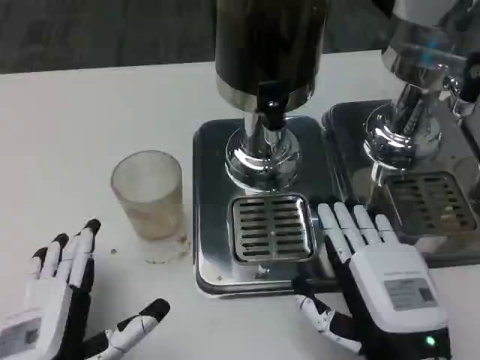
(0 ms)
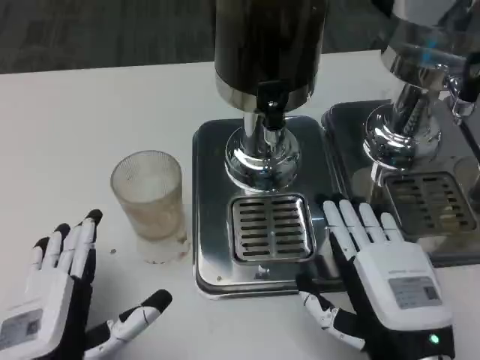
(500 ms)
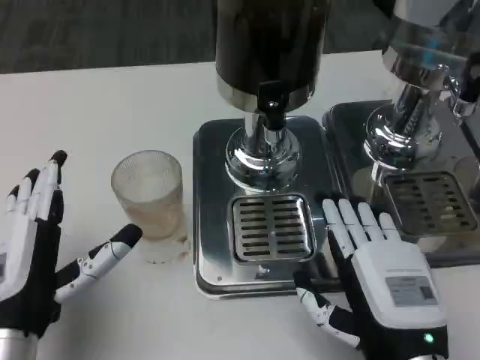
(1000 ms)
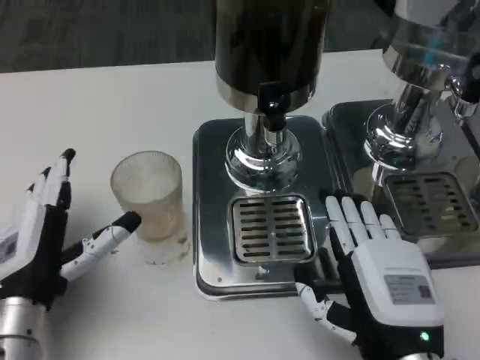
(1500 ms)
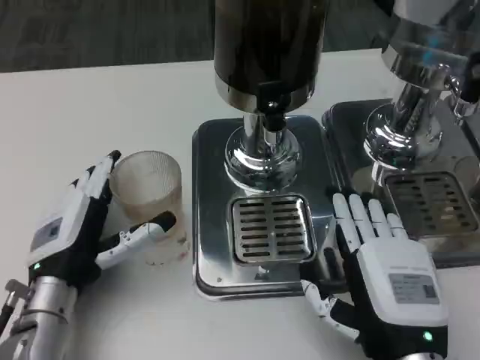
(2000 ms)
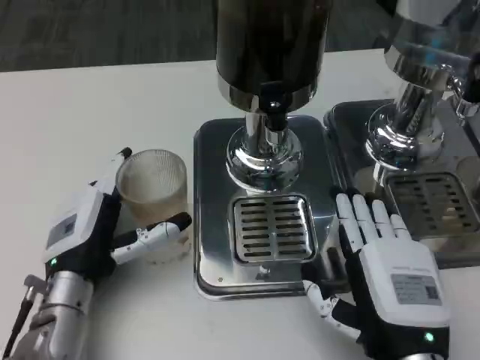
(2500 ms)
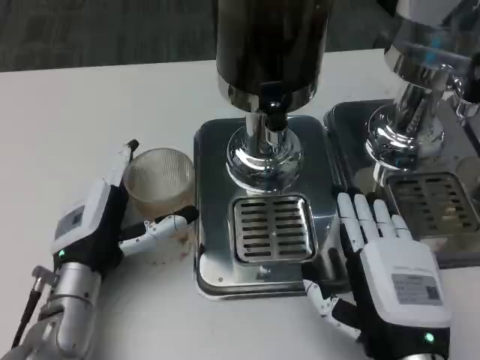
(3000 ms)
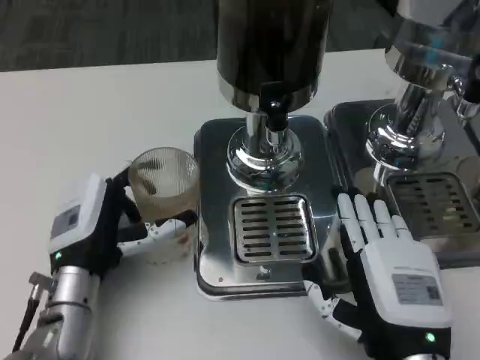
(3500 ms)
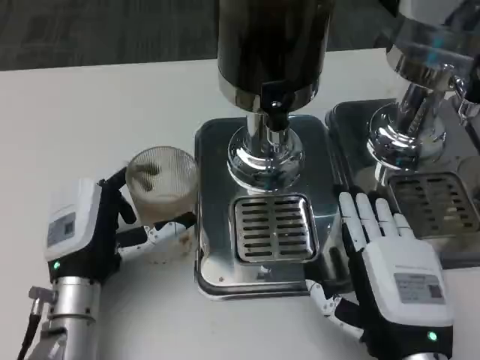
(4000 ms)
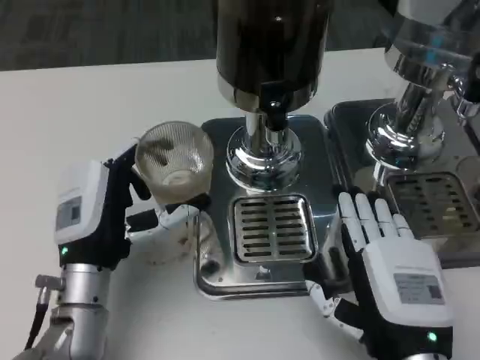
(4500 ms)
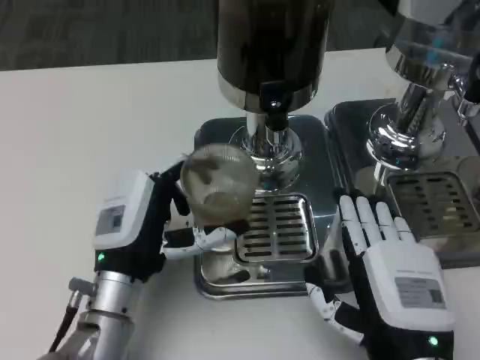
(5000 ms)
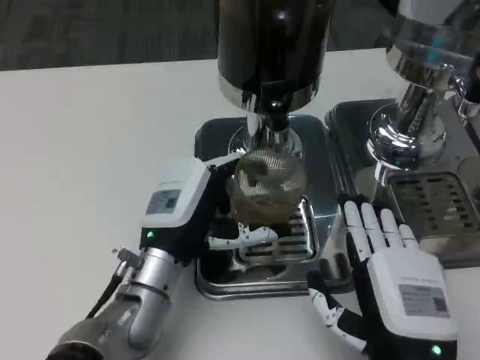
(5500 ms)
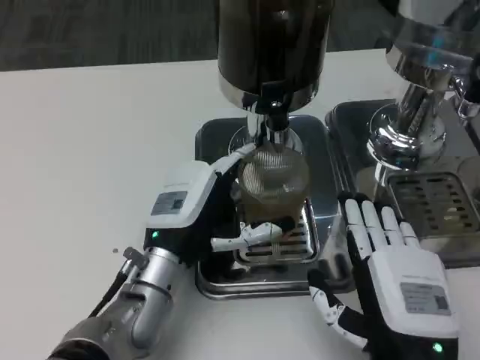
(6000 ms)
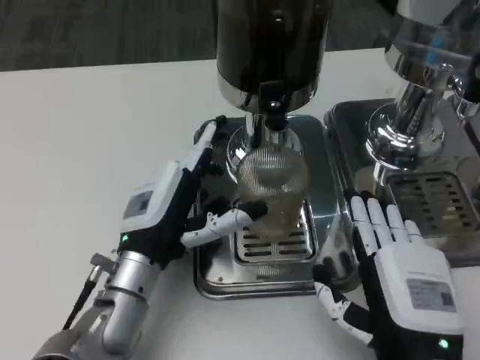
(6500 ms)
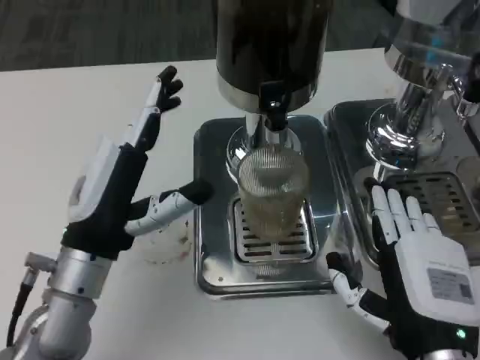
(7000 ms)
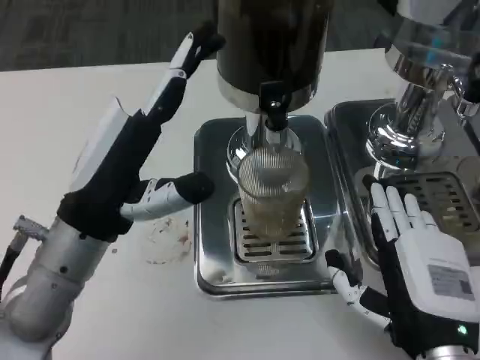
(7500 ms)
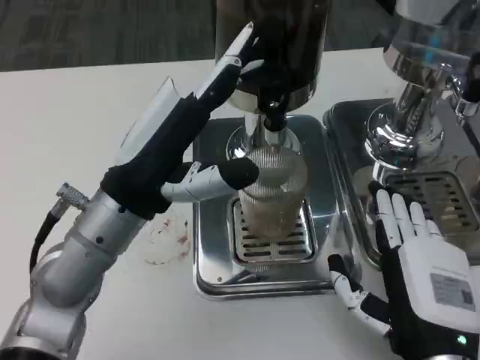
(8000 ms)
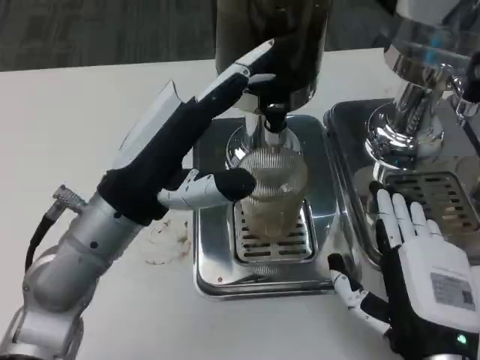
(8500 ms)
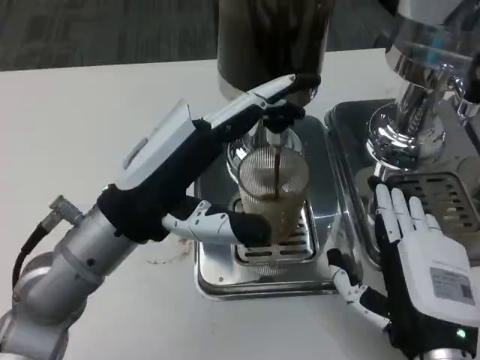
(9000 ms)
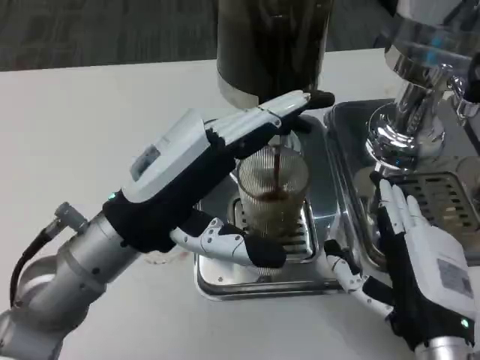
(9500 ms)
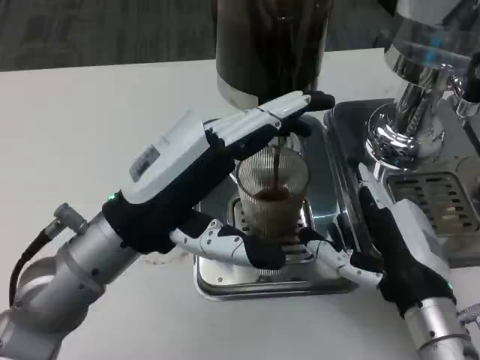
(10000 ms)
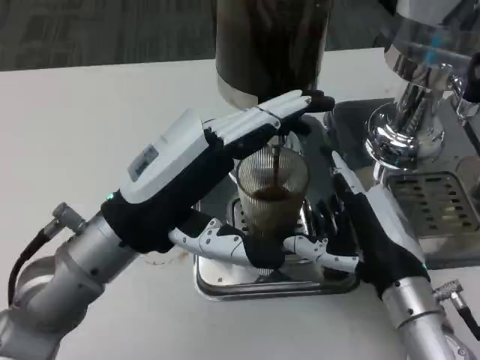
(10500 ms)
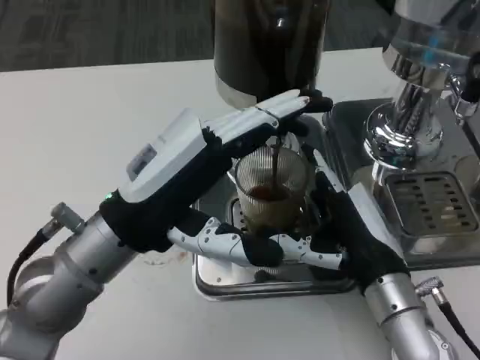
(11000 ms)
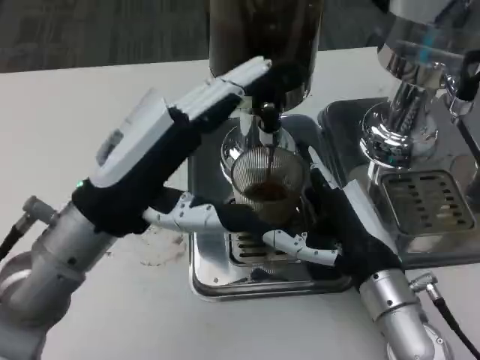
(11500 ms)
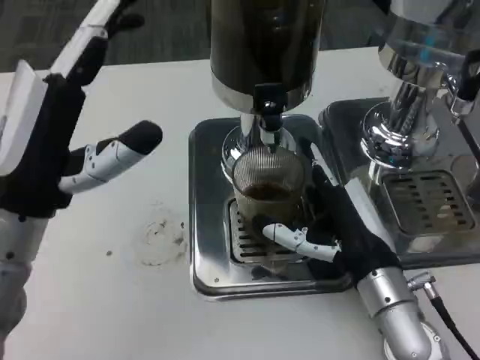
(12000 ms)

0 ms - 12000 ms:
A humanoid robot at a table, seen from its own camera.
Task of the whole recording: Grasp the cup under the faucet to collect the drink, then remove the cup.
0 ms - 2000 ms: The left hand moves forward, some 10 cm.
4000 ms - 6000 ms: The left hand heads to the right, covering some 5 cm.
6000 ms - 8000 ms: The left hand heads upward, covering roughly 10 cm.
8000 ms - 10000 ms: The right hand goes approximately 5 cm forward.
10000 ms - 12000 ms: The right hand shifts by roughly 5 cm; the left hand goes roughly 5 cm to the left.

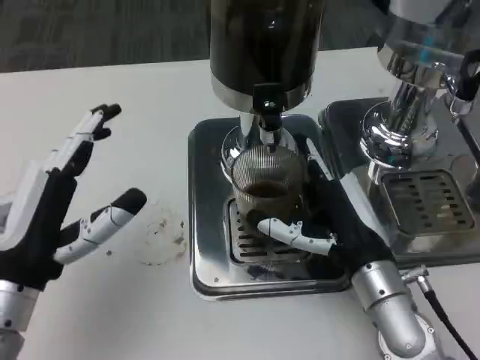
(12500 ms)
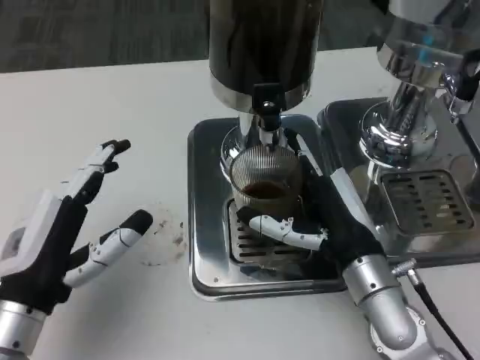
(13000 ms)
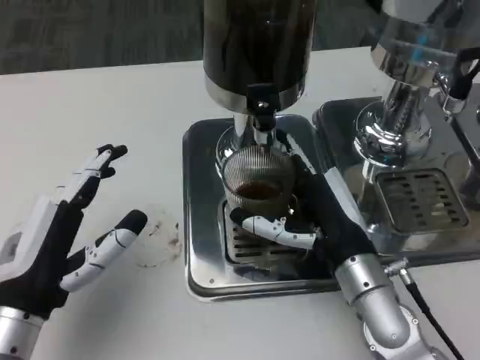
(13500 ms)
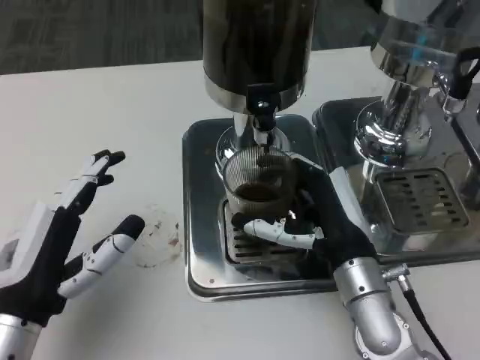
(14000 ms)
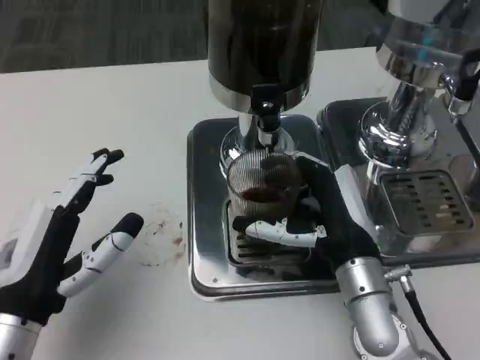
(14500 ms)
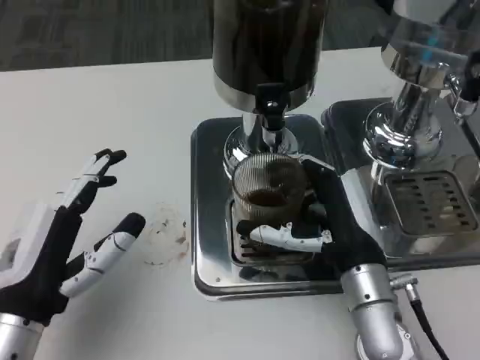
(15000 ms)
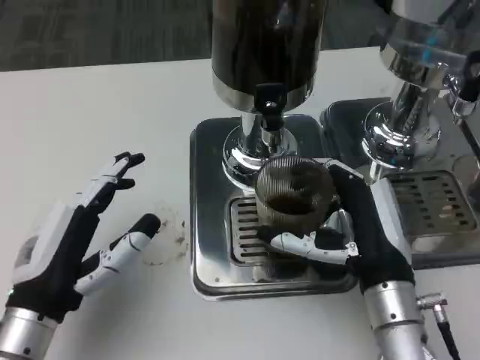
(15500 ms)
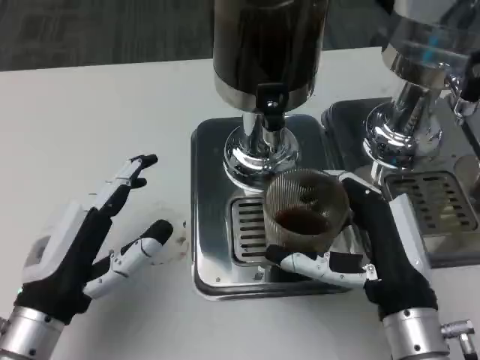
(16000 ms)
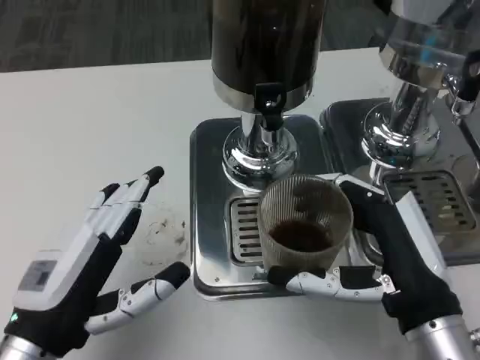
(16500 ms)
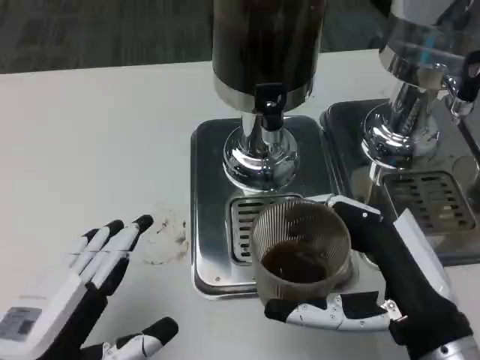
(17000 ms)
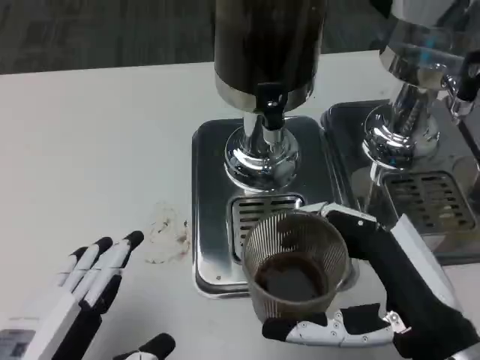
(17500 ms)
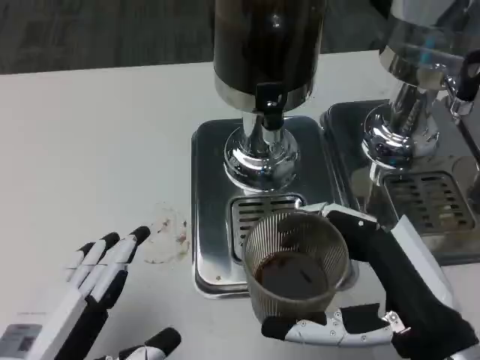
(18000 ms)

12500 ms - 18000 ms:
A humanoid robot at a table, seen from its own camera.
Task of the whole recording: Grasp the cup under the faucet to collect the drink, then remove the cup.
14500 ms - 16000 ms: The right hand moves backward, roughly 5 cm.
16000 ms - 18000 ms: The left hand moves backward, some 10 cm. Meanwhile the right hand shifts approximately 5 cm backward.

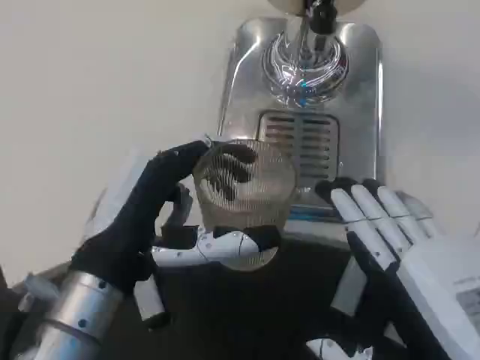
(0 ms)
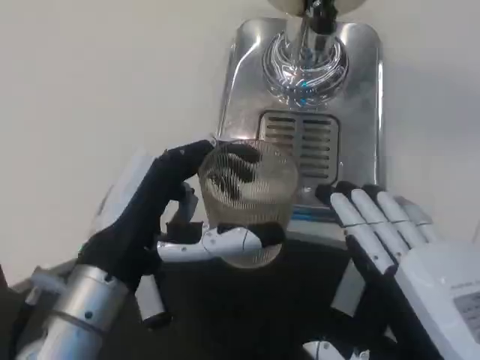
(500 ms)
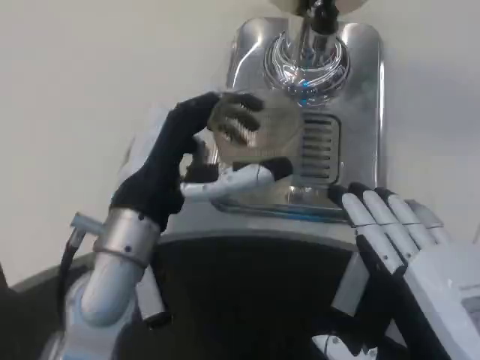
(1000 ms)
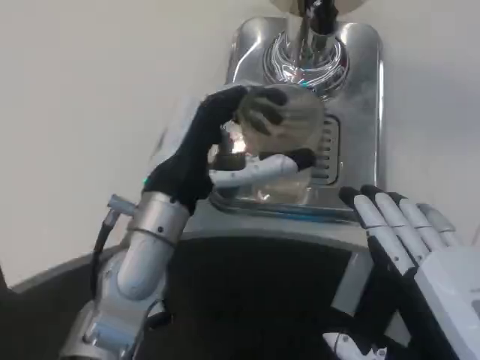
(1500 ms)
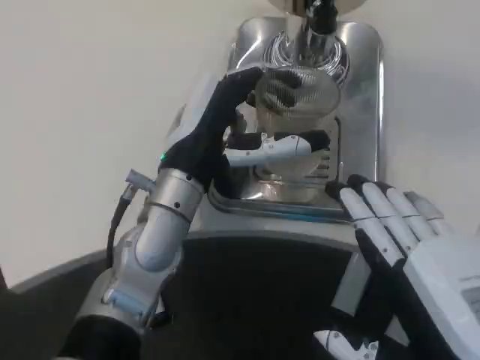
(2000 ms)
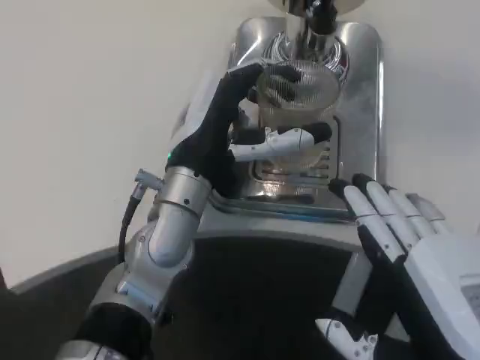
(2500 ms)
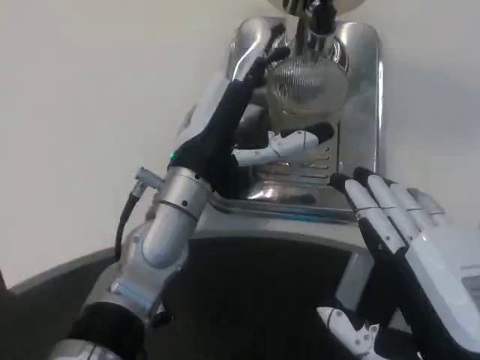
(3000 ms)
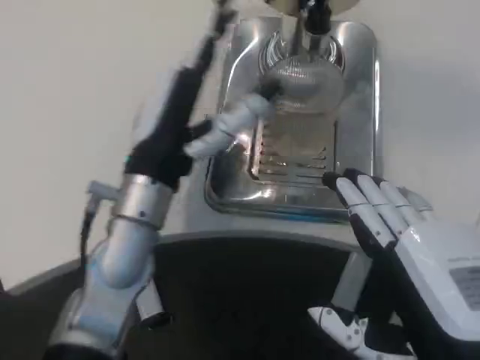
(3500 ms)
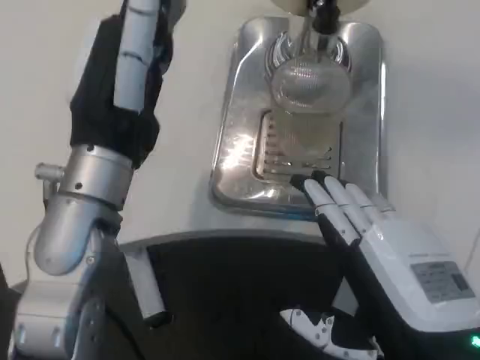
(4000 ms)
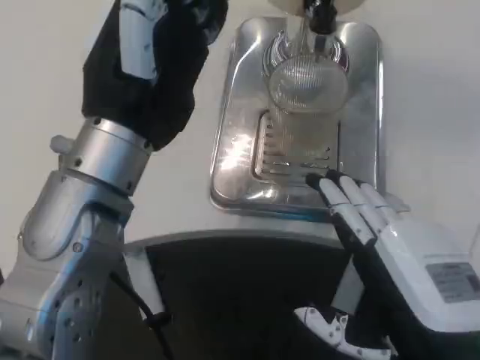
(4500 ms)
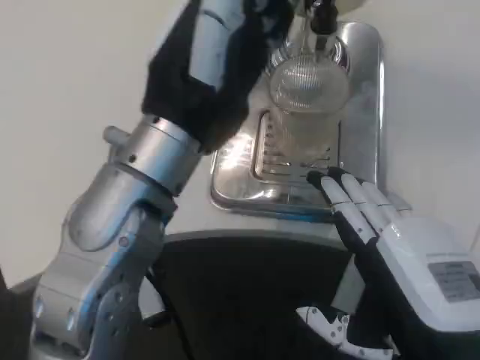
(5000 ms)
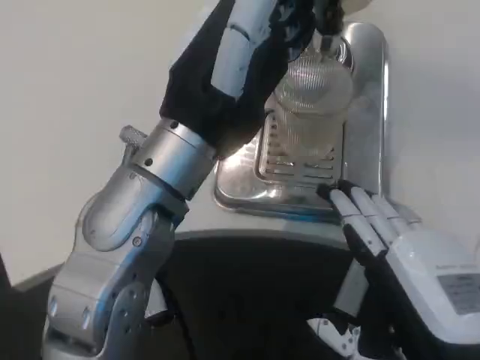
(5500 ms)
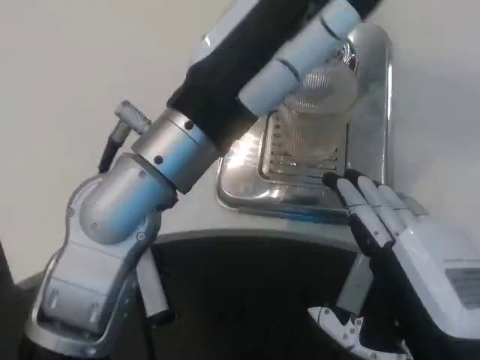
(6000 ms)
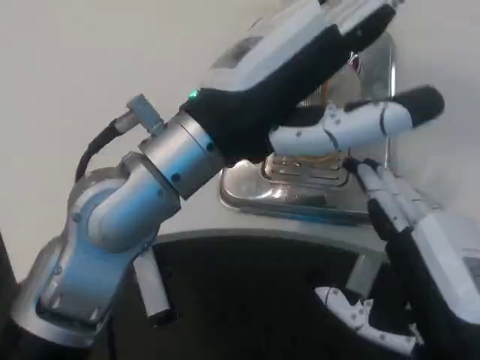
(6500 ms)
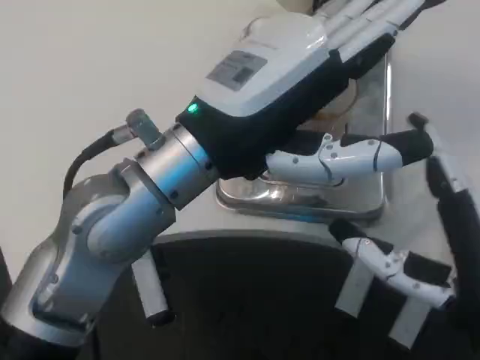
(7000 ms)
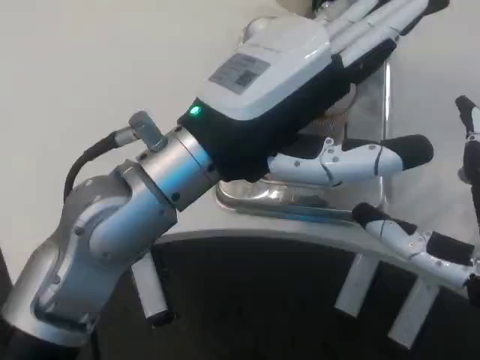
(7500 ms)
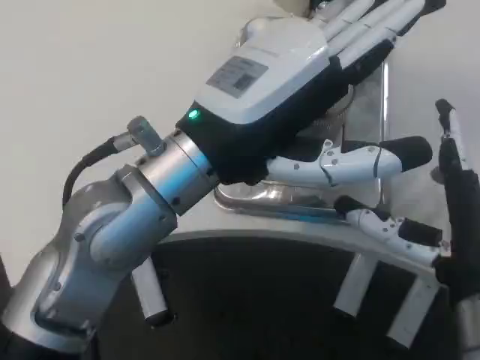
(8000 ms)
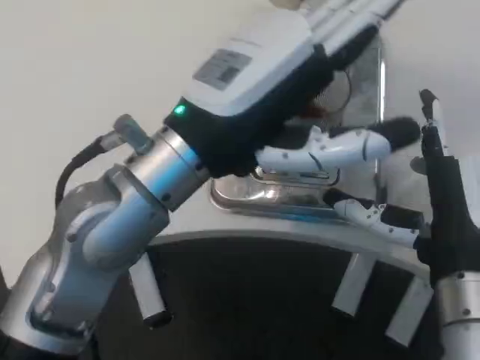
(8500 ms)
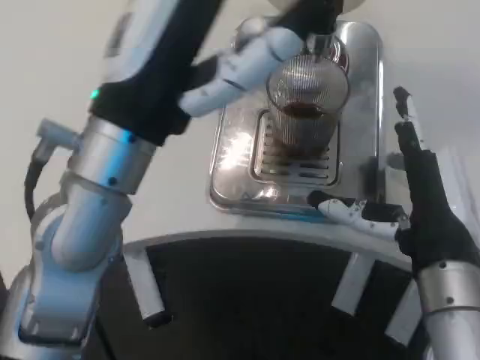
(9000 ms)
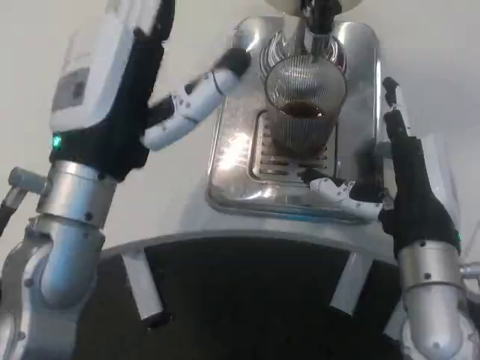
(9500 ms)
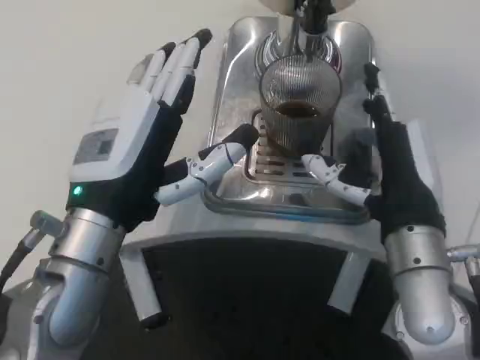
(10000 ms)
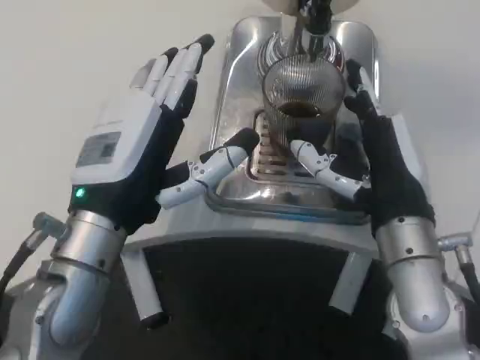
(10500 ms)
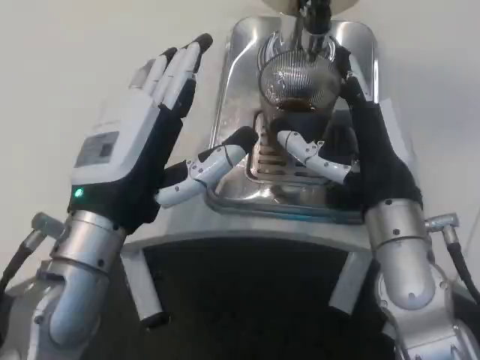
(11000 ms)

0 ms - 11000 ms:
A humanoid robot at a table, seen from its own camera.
Task of the whole recording: Grasp the cup under the faucet to collect the drink, then remove the cup.
0 ms - 2000 ms: The left hand travels forward and to the right by some 15 cm.
3500 ms - 5500 ms: The left hand goes roughly 10 cm upward.
7500 ms - 9000 ms: The right hand heads forward, covering roughly 5 cm.
9000 ms - 11000 ms: The right hand heads forward, covering about 5 cm; the left hand travels downward by roughly 5 cm.
